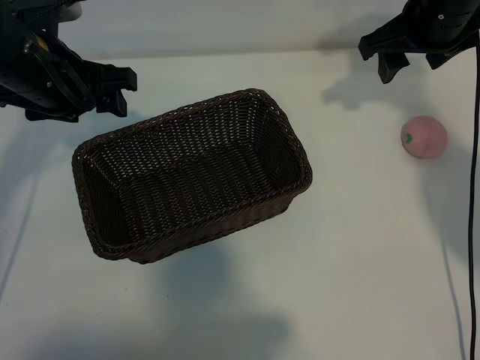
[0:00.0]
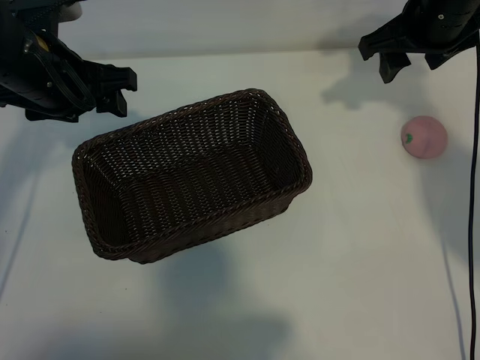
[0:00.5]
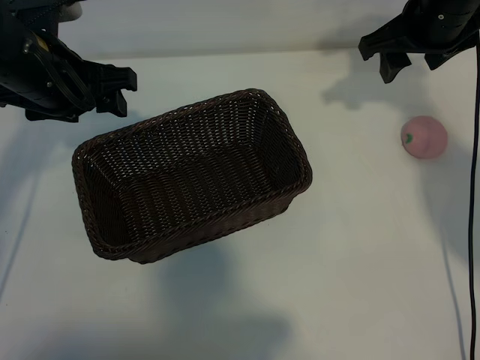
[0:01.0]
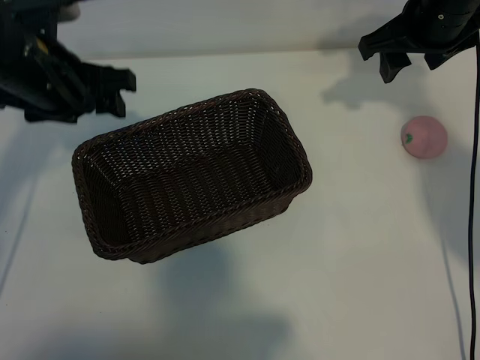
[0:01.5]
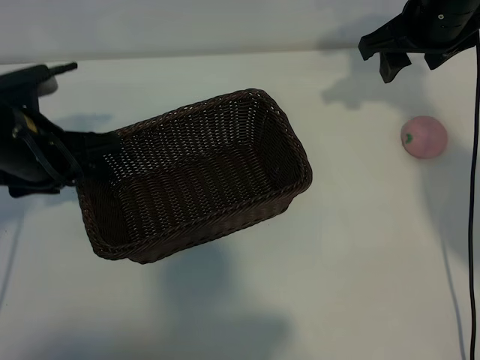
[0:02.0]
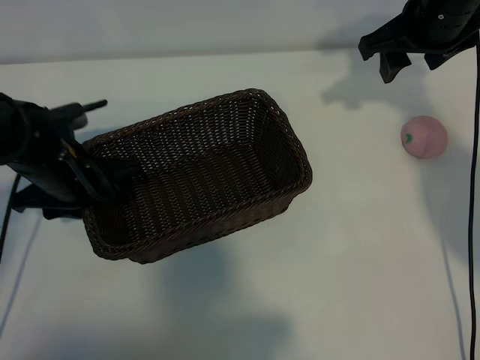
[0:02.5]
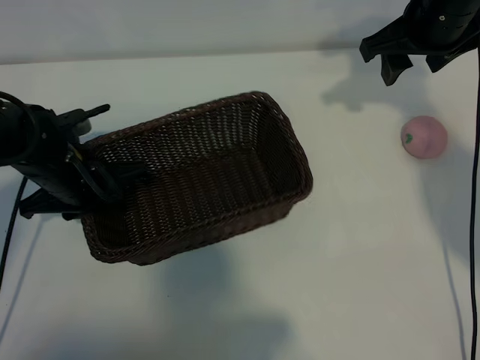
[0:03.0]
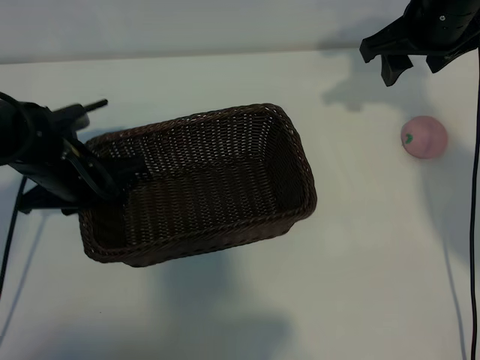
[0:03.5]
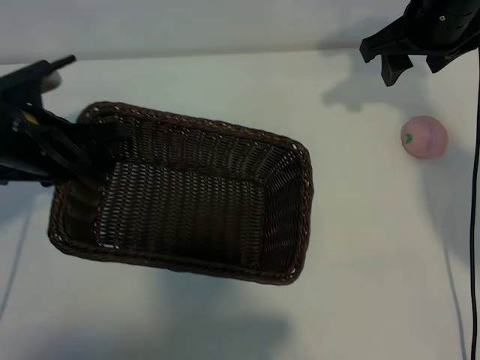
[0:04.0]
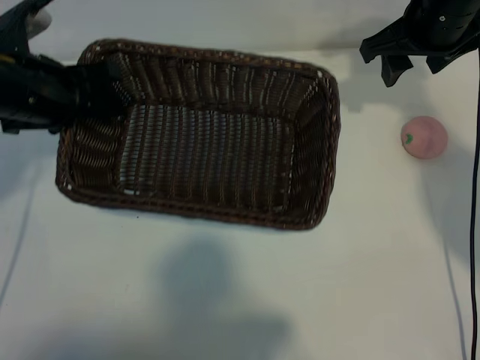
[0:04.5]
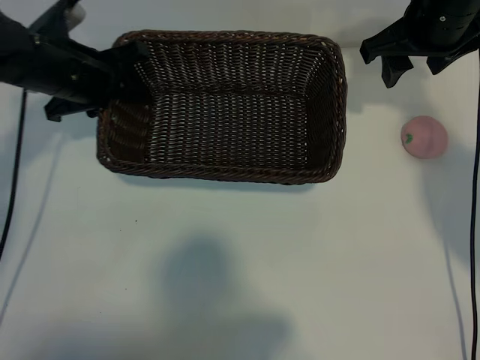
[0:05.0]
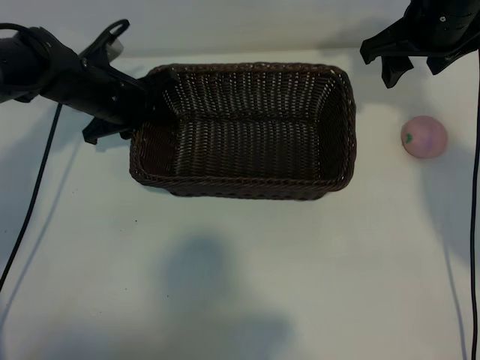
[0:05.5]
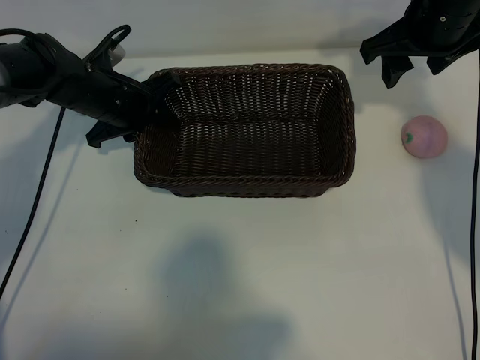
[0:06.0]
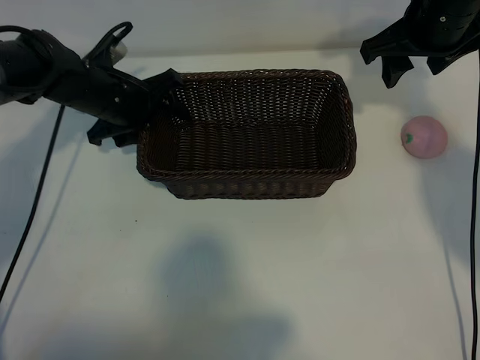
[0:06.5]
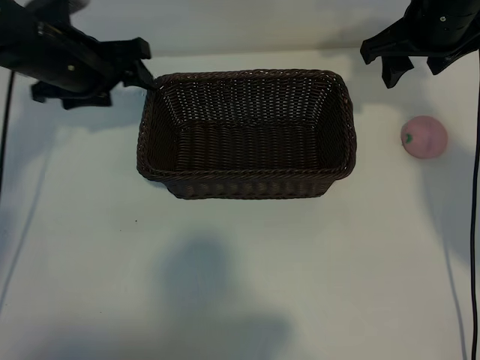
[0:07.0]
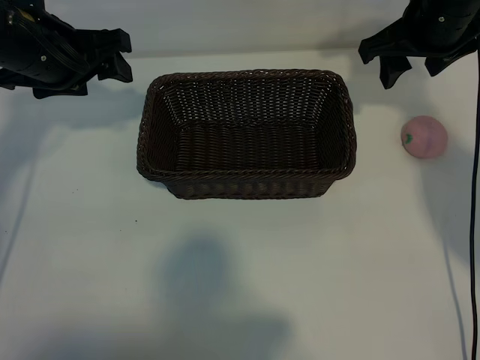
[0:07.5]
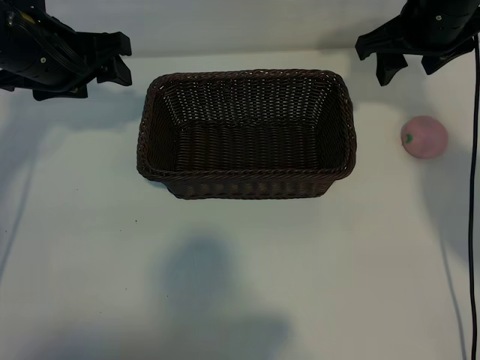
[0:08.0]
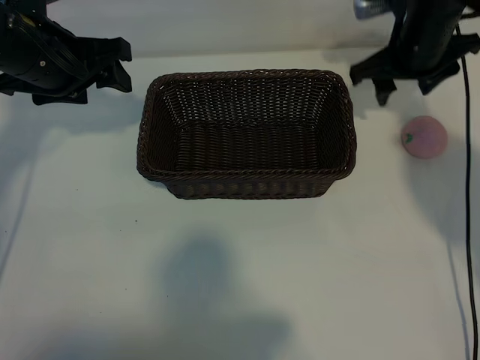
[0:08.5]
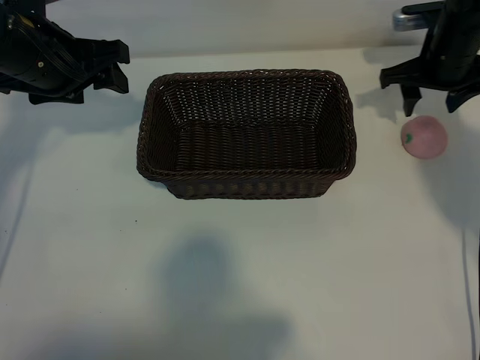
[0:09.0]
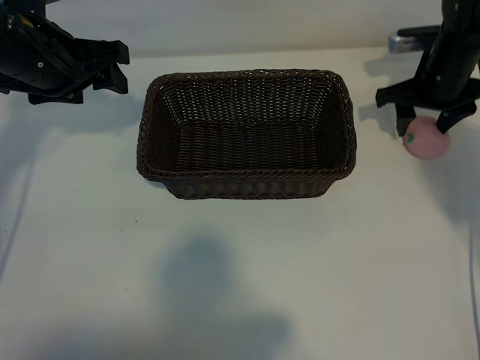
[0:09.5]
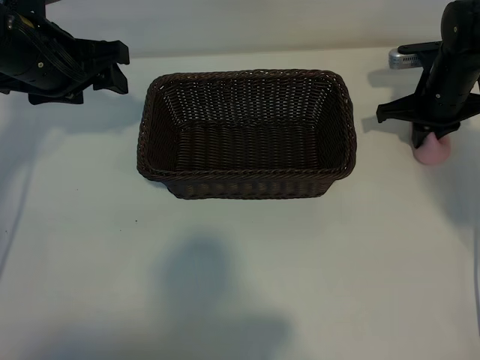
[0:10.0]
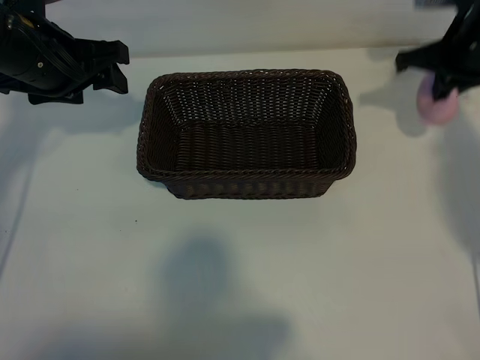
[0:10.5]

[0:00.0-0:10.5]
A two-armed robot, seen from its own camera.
Task of the whole recording: pick up the peach and put it into the basket.
Step, 0:01.5 to 0:03.0: Grasp the basket with left gripper.
Step, 0:03.5 to 0:06.5: Place the basket in the center of view with left gripper.
Step, 0:07.0 to 0:10.0: Grasp the peach with right gripper.
